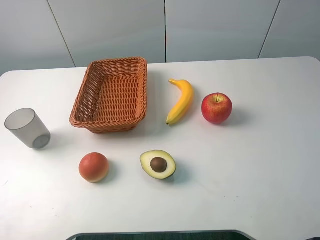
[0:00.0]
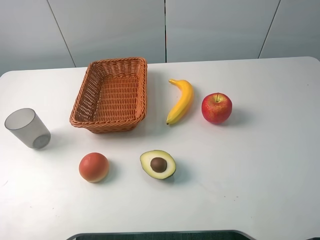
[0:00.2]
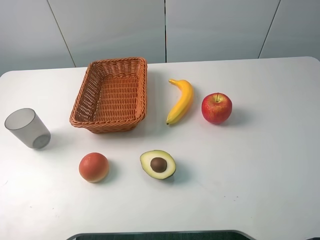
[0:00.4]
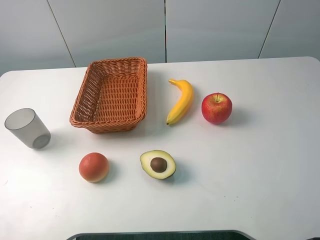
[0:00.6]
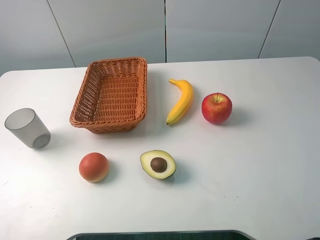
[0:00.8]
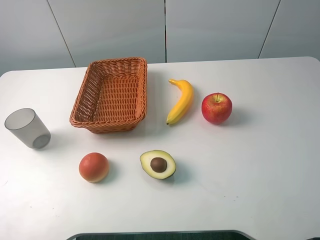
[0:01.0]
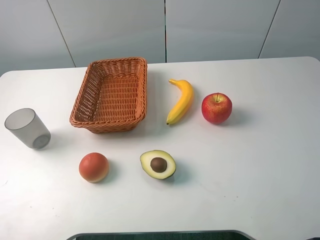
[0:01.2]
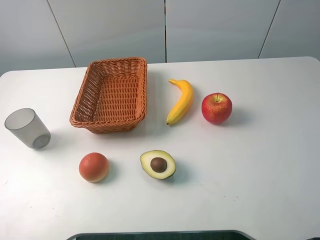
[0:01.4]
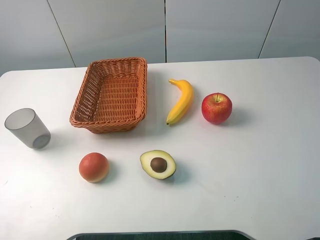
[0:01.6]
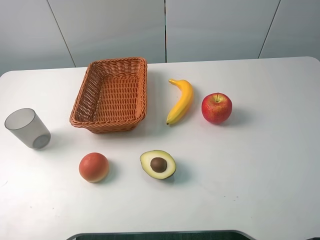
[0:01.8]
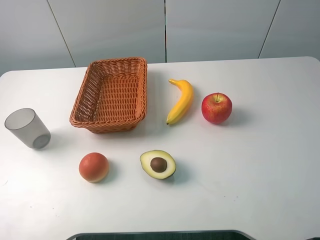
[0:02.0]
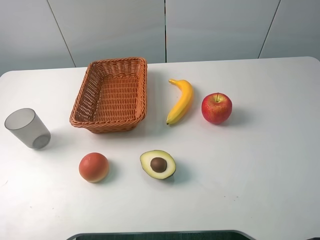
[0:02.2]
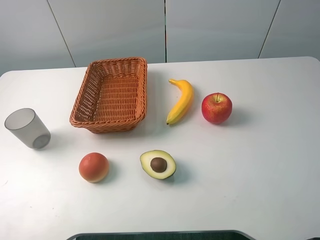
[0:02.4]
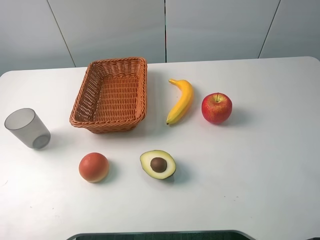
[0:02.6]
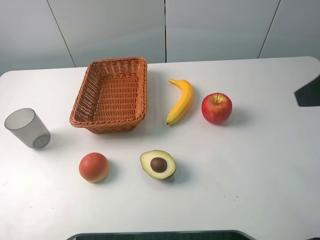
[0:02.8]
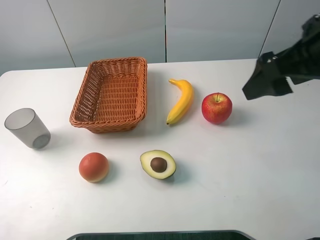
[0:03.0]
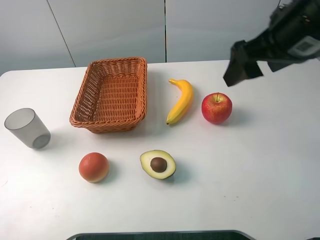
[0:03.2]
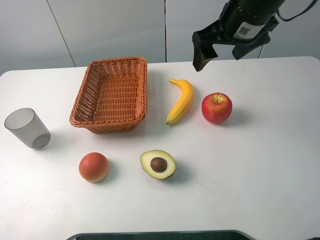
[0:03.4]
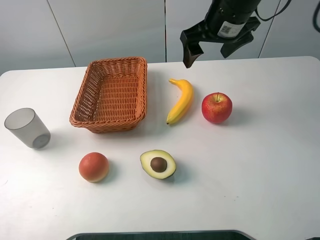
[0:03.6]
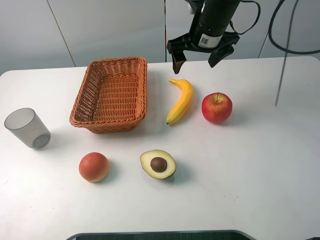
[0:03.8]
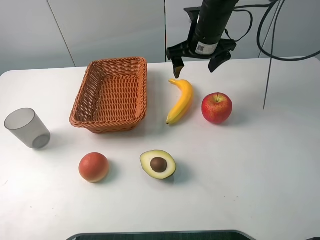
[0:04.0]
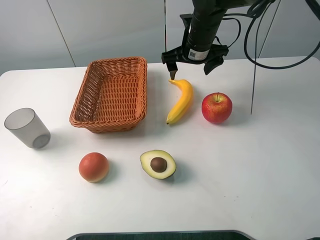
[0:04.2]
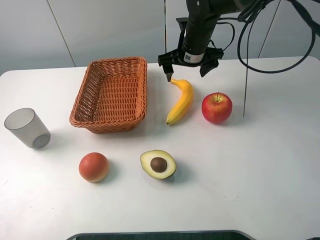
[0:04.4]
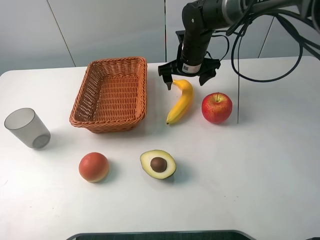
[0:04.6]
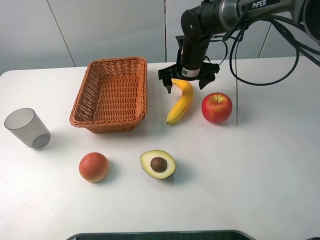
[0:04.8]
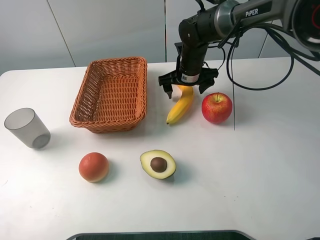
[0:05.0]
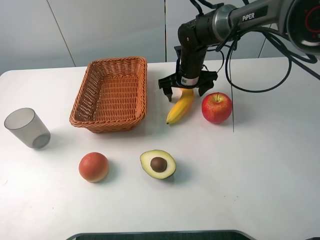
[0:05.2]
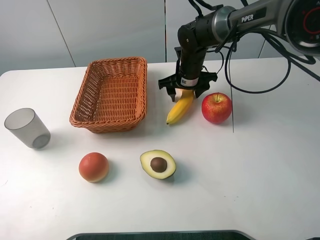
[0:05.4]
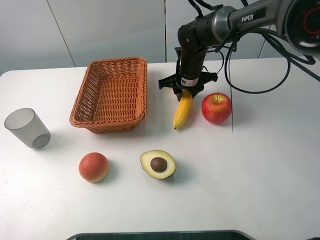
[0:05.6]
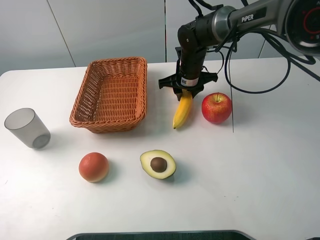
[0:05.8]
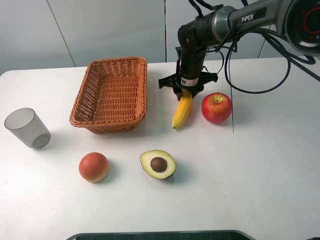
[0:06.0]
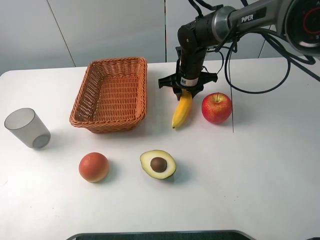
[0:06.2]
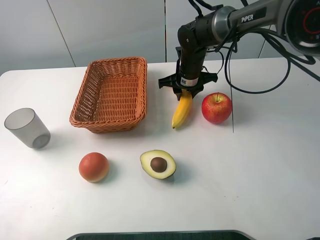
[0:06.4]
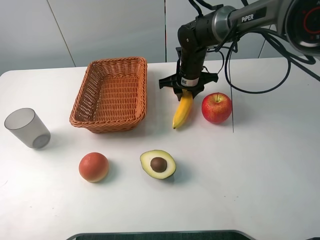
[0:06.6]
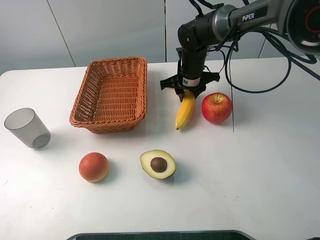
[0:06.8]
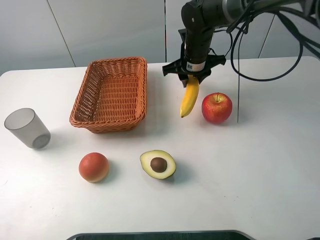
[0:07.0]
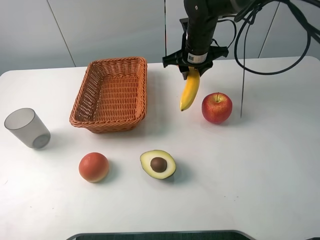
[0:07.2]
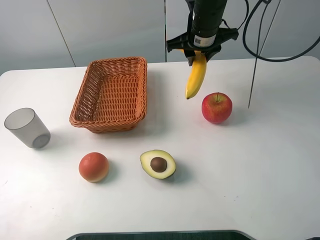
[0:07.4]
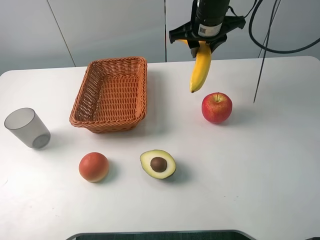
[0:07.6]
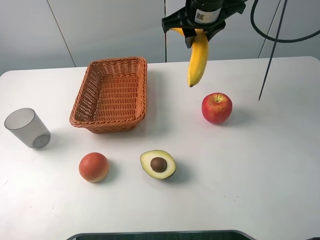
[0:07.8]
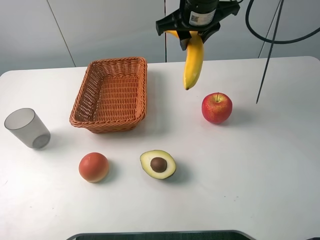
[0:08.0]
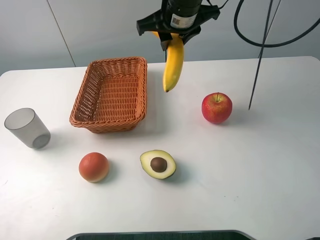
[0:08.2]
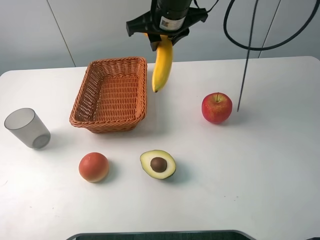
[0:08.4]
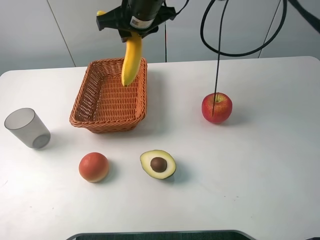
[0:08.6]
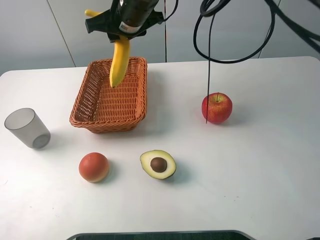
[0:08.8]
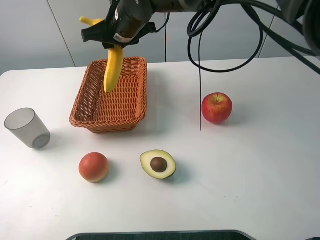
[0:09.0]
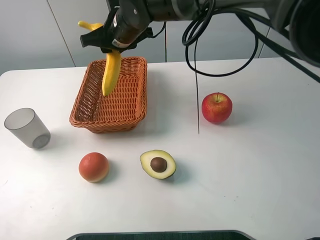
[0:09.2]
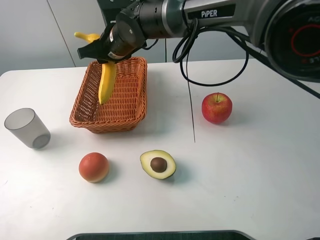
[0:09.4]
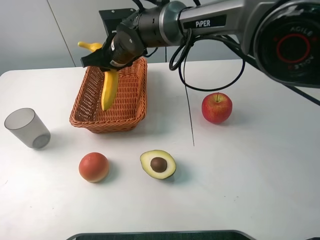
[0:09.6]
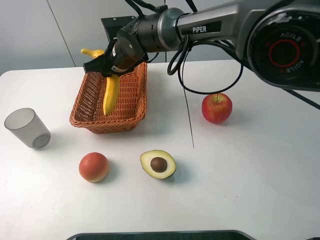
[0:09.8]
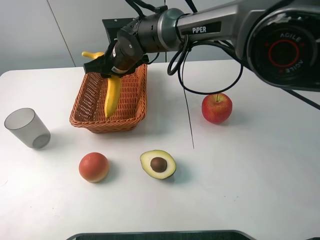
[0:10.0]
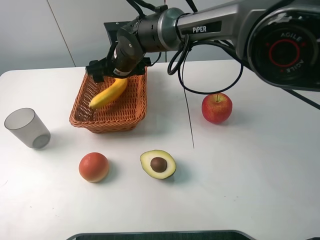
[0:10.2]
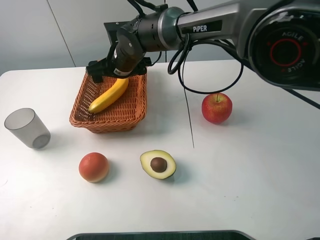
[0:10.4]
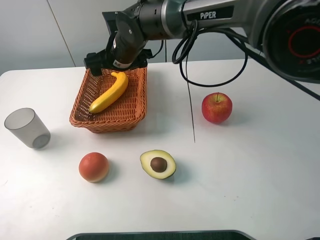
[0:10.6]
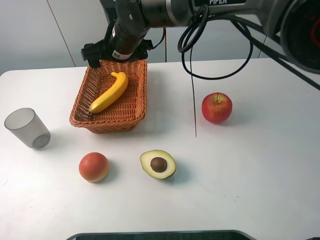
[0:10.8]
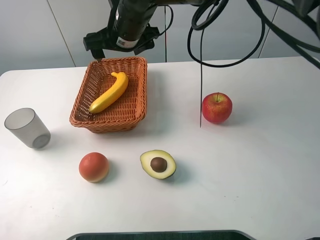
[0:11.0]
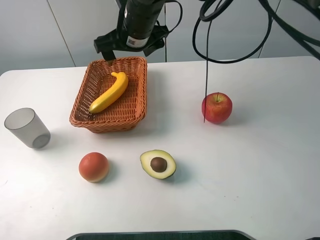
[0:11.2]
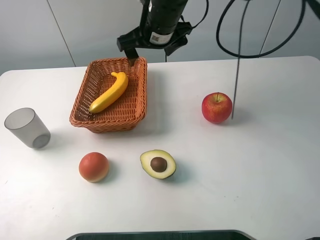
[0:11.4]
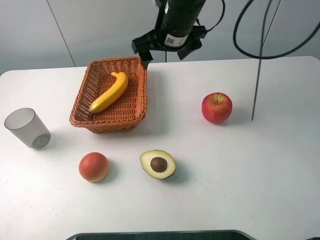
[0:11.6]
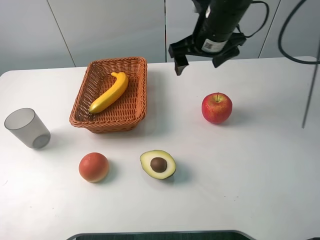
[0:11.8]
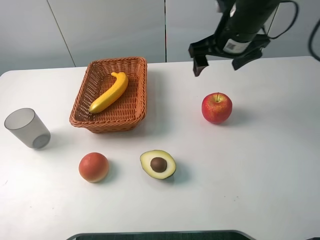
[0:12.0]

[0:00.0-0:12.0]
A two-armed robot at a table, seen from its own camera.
0:00.0 to 0:01.6: Neither gripper changes place.
0:01.6 to 0:03.0: The right gripper goes some 20 cm forward and to the left.
0:03.0 to 0:04.4: The right gripper shifts about 30 cm forward, downward and to the left.
0:04.4 to 0:06.0: The right gripper is displaced downward by roughly 5 cm, and closes.
0:06.0 to 0:07.6: The right gripper travels upward by approximately 15 cm.
0:07.6 to 0:09.0: The right gripper moves to the left, some 15 cm.
0:09.0 to 0:10.4: The right gripper moves downward, about 5 cm, and opens its fingers.
0:10.4 to 0:12.0: The right gripper shifts roughly 25 cm to the right and upward.

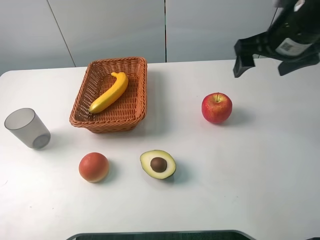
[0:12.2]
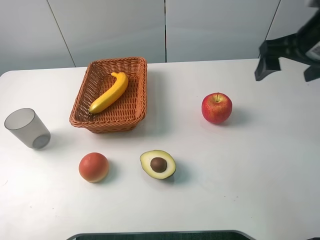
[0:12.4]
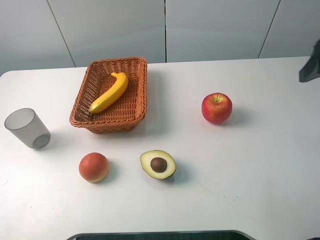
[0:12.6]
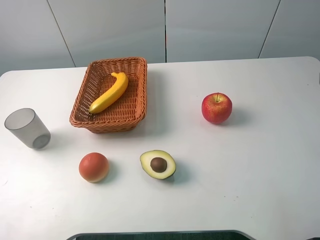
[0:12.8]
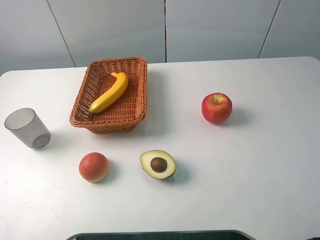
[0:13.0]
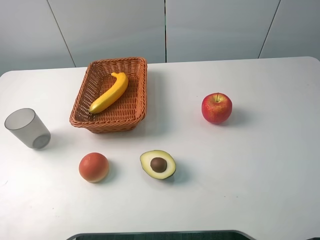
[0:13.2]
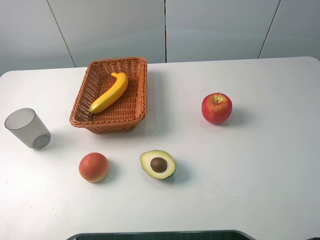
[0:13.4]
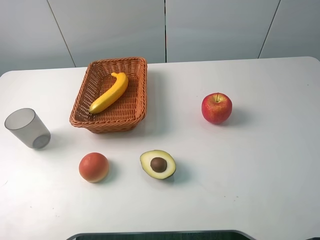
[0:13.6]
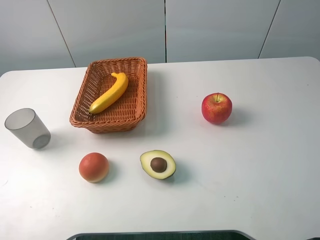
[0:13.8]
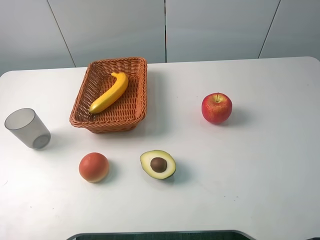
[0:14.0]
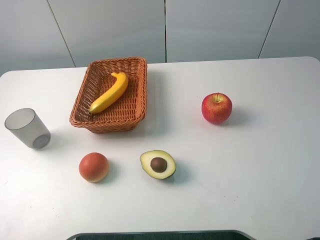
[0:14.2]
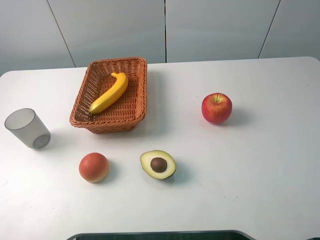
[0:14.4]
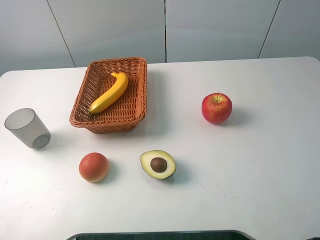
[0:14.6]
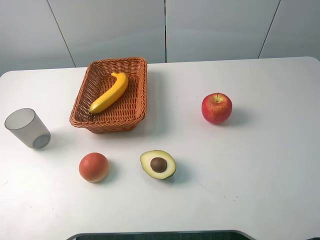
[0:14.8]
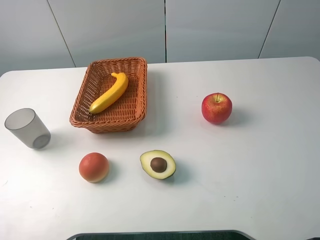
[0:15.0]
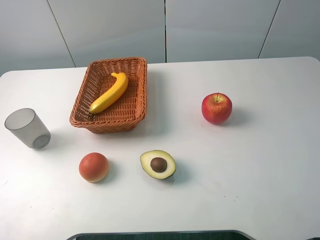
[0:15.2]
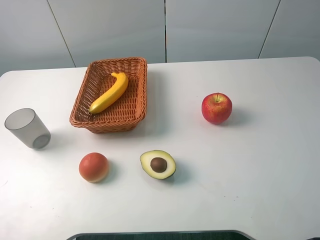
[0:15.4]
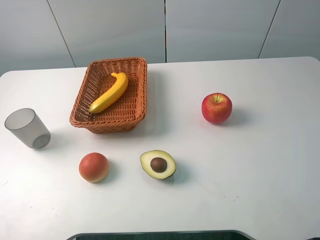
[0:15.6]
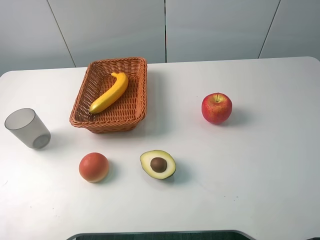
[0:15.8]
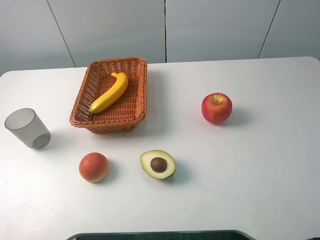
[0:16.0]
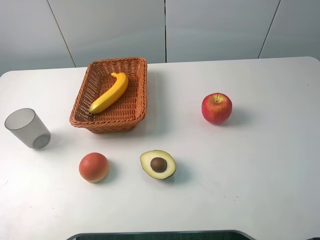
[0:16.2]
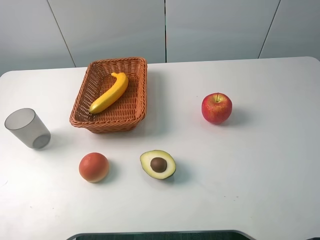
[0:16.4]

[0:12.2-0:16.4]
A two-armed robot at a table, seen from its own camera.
0:12.2 to 0:13.6: The right gripper heads backward, covering approximately 25 cm.
0:15.0 to 0:16.4: Both grippers stay put.

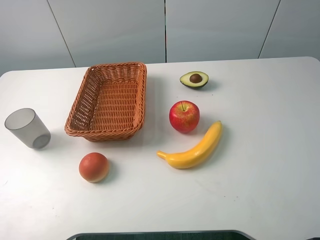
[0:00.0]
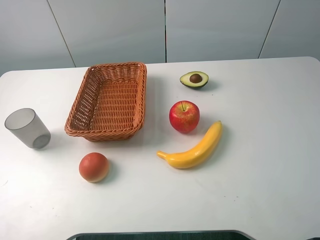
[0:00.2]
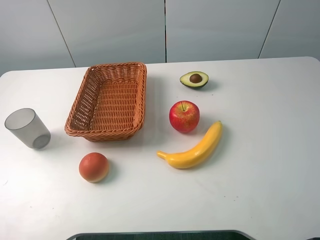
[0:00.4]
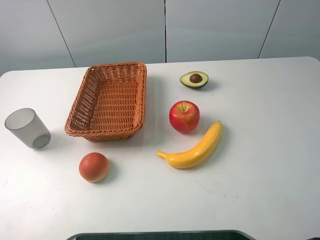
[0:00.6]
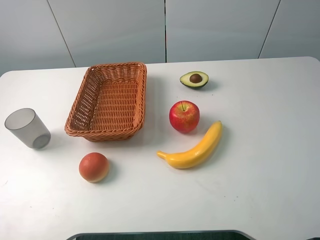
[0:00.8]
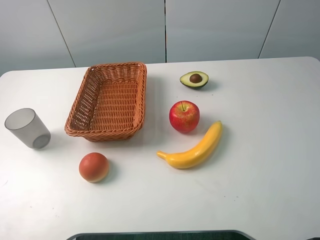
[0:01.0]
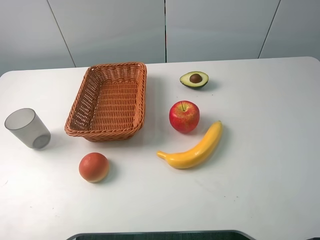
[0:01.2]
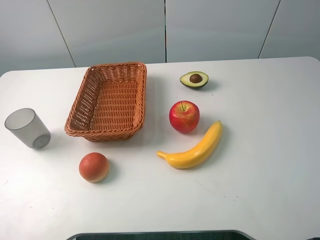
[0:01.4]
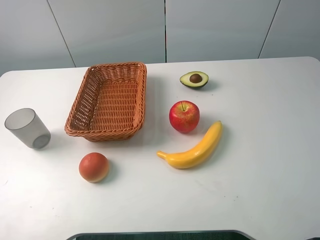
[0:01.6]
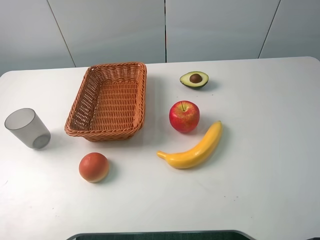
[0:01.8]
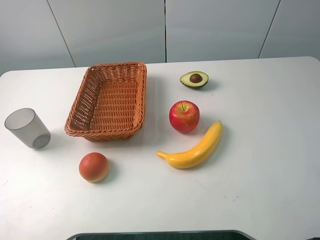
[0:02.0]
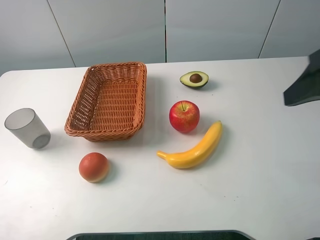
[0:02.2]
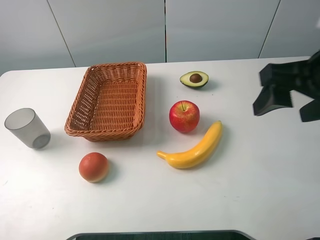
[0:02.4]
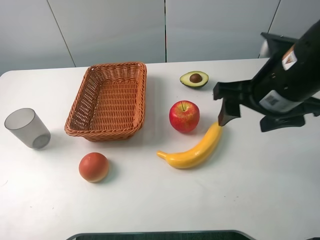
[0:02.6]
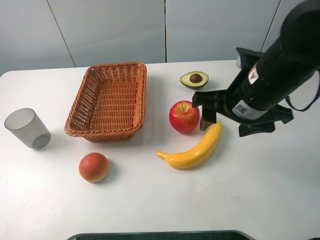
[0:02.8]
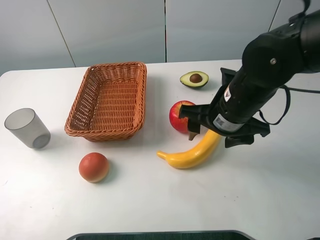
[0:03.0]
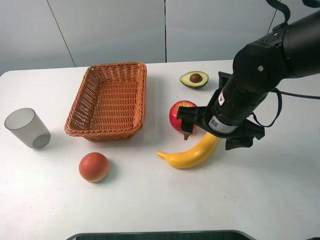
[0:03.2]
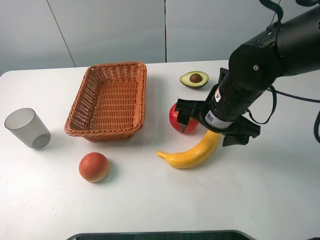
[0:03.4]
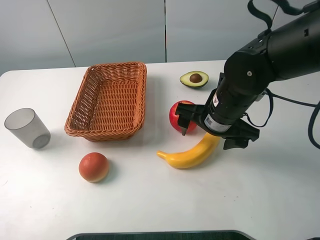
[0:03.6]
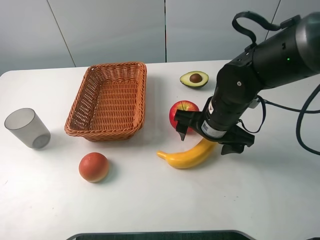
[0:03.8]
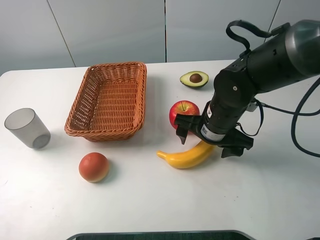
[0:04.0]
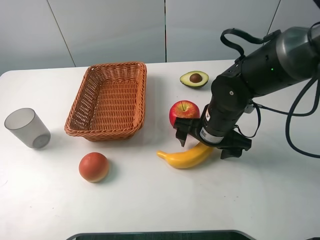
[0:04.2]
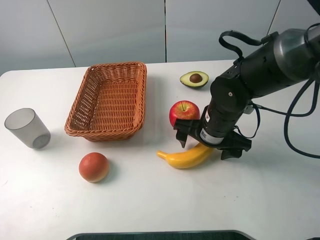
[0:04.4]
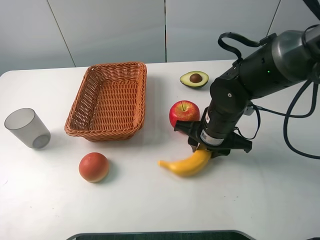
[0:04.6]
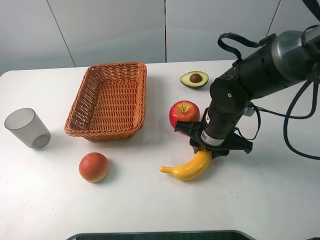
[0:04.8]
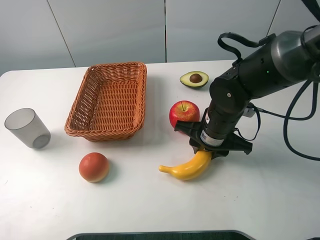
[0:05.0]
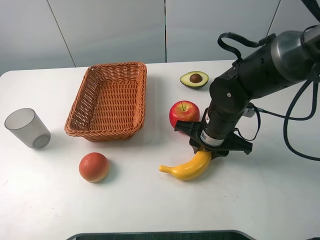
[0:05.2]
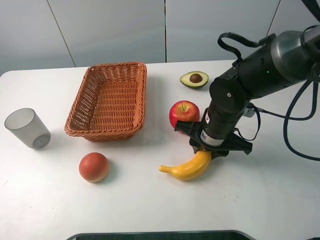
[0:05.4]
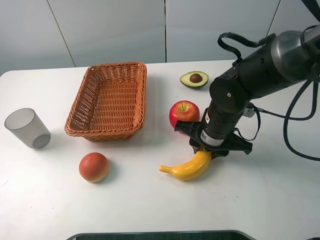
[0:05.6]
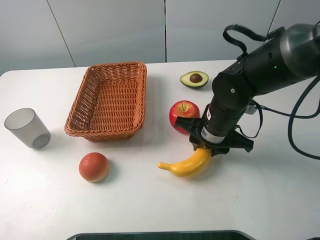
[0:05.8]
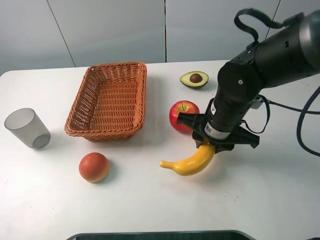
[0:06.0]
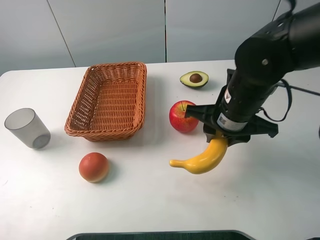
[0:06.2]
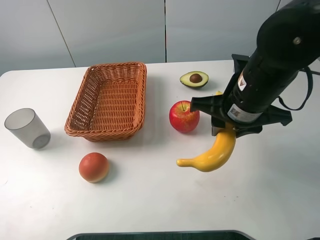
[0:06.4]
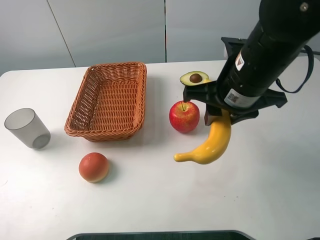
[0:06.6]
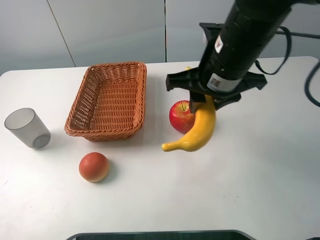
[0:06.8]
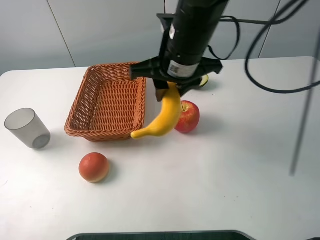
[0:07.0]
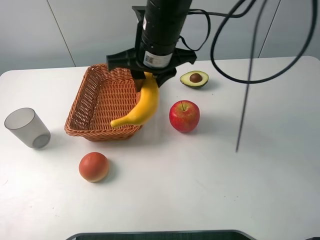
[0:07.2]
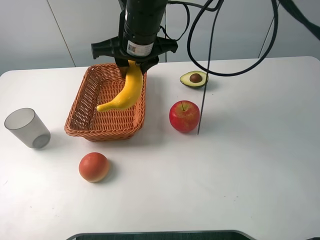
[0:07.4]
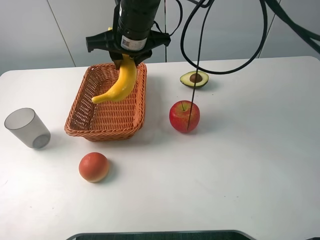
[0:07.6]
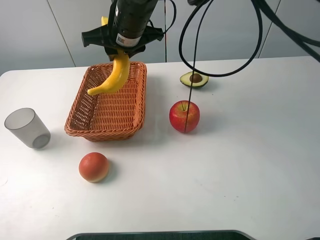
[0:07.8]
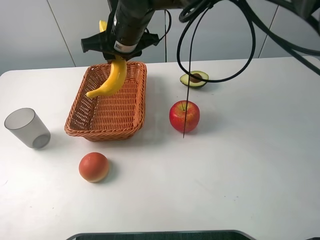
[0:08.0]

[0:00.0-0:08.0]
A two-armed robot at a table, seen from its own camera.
0:01.6 to 0:03.2: The right gripper moves forward, downward and to the left, about 30 cm.
0:03.2 to 0:04.8: The right gripper is displaced downward by approximately 5 cm, and closes up.
0:04.8 to 0:06.4: The right gripper is displaced upward by roughly 10 cm.
0:06.4 to 0:08.0: The right gripper heads to the left and forward, covering roughly 25 cm.
